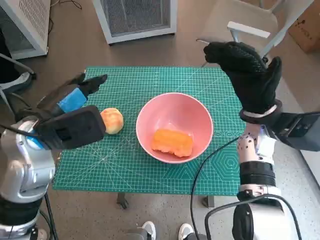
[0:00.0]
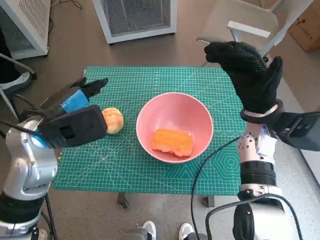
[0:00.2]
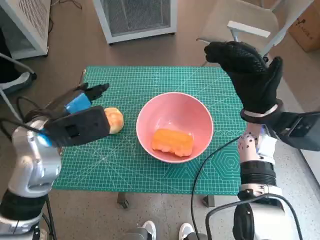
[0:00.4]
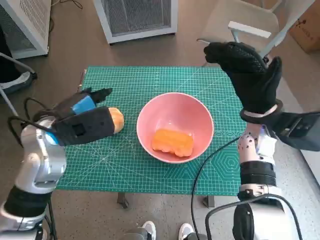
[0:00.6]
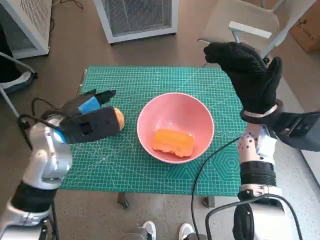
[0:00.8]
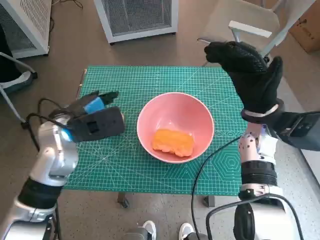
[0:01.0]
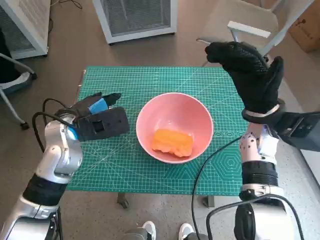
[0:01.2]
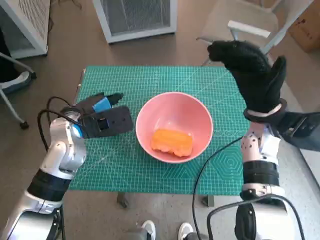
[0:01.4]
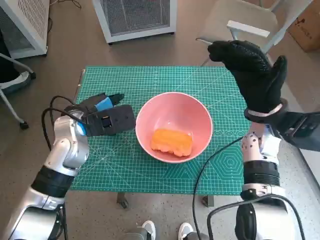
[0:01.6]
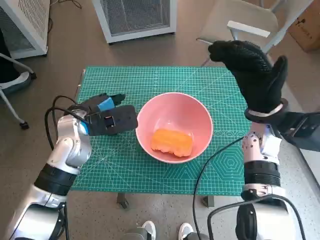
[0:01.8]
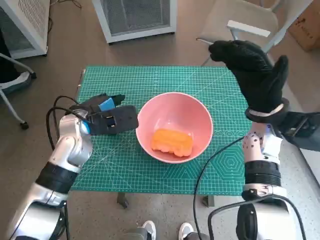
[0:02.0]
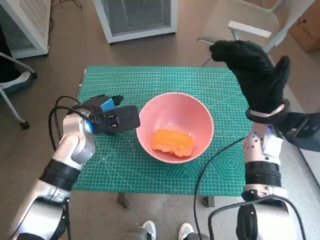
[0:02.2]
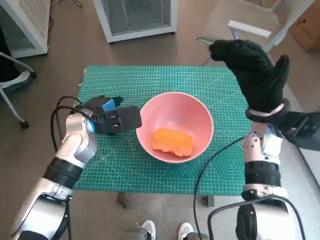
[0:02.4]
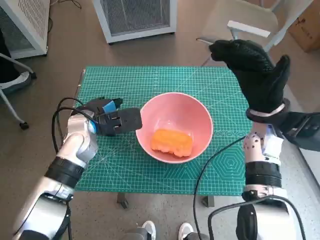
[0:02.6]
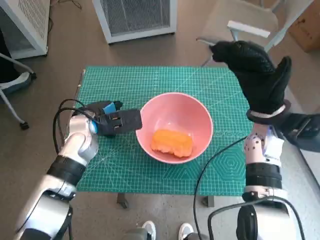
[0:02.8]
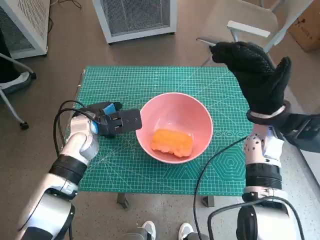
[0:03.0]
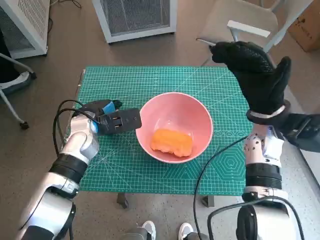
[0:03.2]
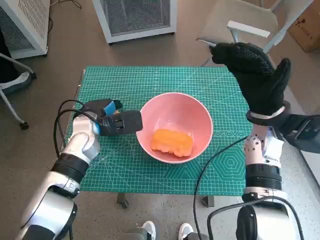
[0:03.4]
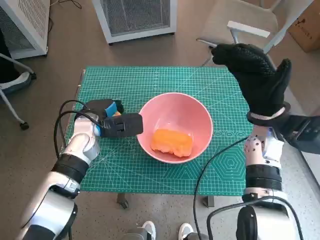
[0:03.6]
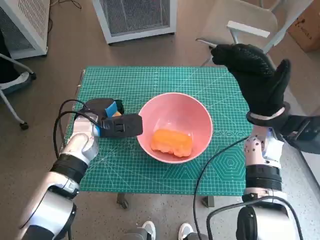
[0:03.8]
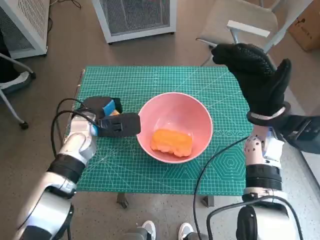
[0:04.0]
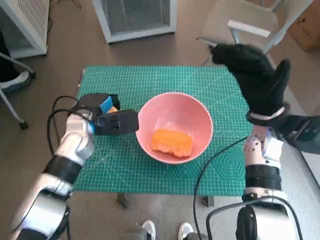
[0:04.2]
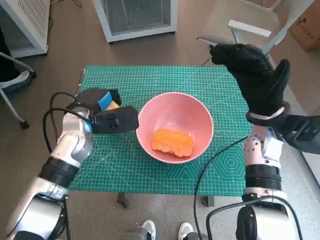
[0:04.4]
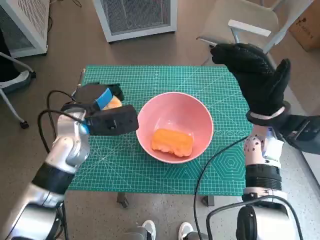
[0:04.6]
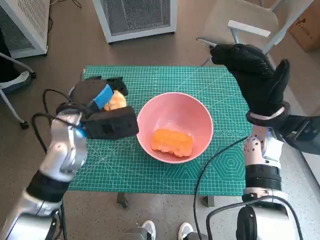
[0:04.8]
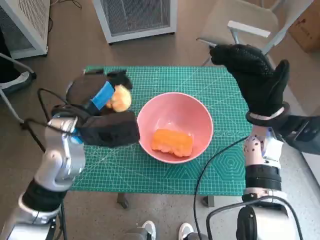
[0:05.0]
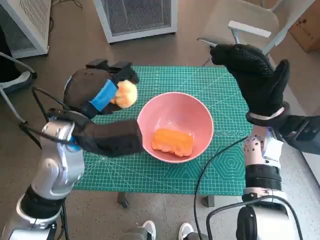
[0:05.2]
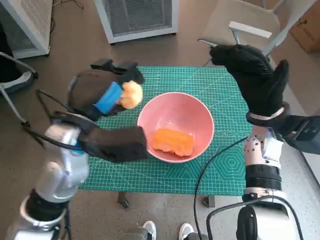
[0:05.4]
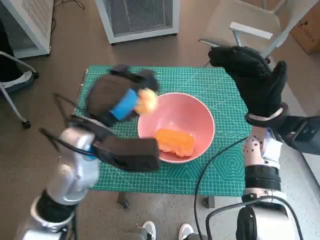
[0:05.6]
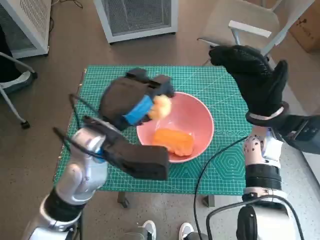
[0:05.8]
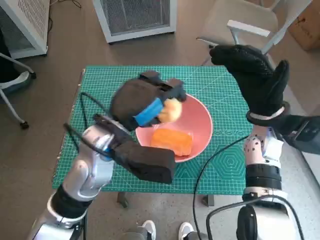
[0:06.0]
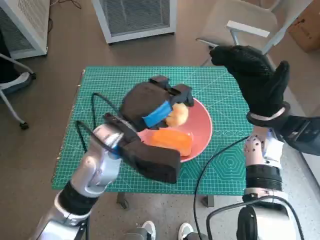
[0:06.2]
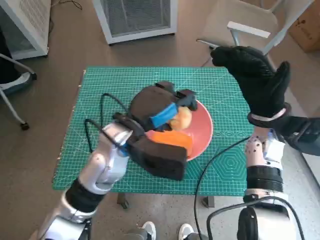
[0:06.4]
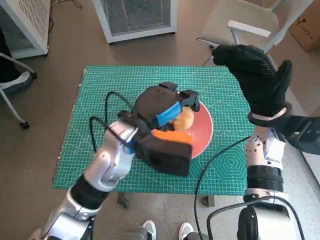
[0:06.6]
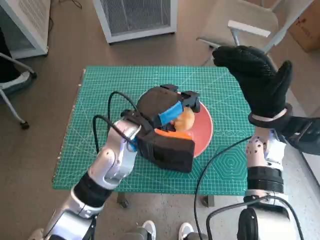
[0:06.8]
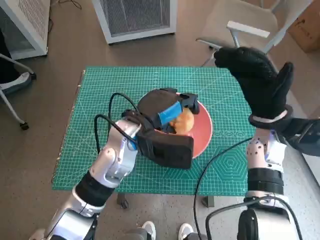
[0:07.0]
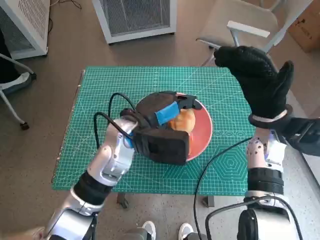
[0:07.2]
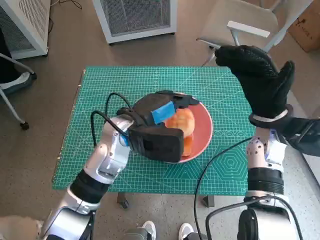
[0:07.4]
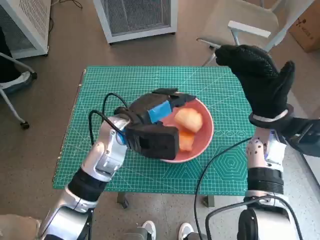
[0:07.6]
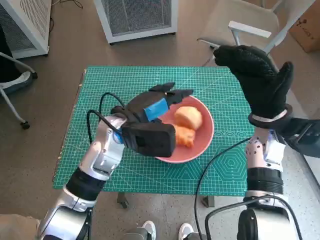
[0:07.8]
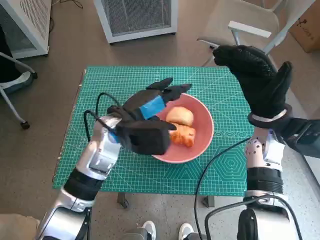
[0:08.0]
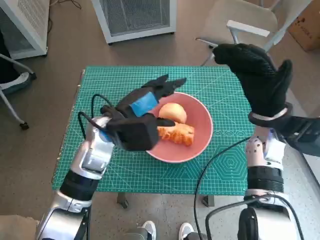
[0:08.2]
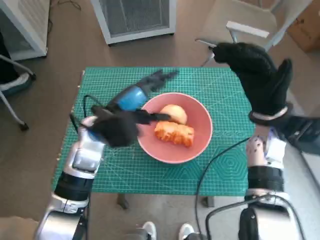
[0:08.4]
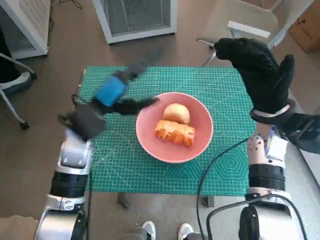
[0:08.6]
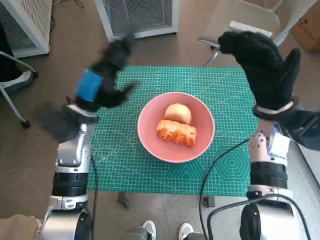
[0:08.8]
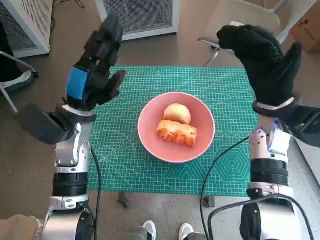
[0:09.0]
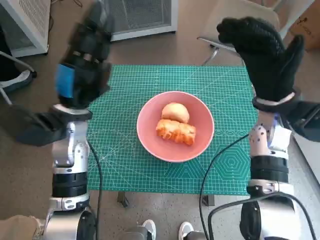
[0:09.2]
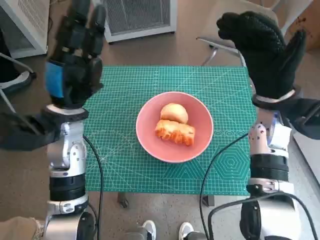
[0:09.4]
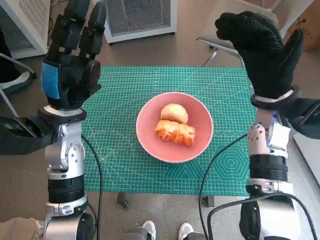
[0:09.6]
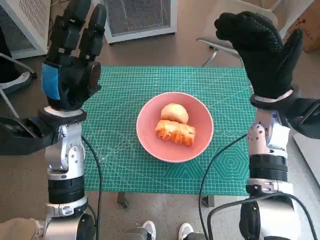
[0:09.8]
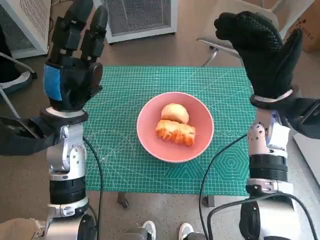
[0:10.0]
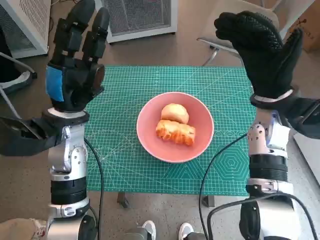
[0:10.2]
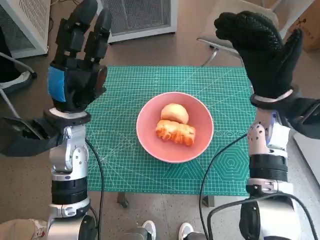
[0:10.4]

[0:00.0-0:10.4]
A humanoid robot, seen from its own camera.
Step, 0:00.0 to 0:03.6: Grasp the round bread with left hand.
Step, 0:03.8 to 0:07.6: Place the round bread in pink bowl with left hand.
0:00.0 to 0:01.4: The left hand travels downward and forward by roughly 10 cm.
0:01.4 to 0:03.0: The left hand moves roughly 5 cm.
0:03.0 to 0:04.4: The hands make only small movements.
0:04.4 to 0:06.0: The left hand shifts some 15 cm to the right, backward and upward.
0:06.0 to 0:07.4: The left hand shifts by some 5 cm.
0:07.4 to 0:09.0: The left hand shifts roughly 10 cm to the left.

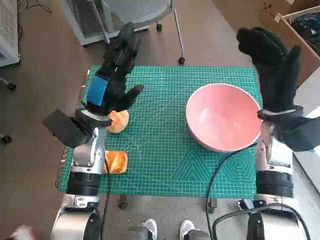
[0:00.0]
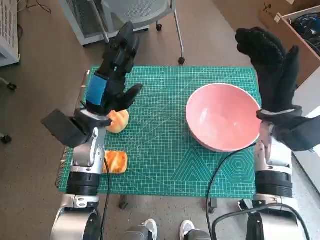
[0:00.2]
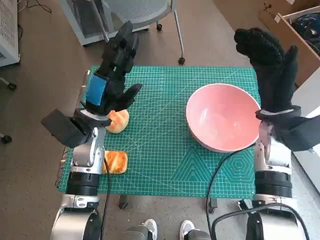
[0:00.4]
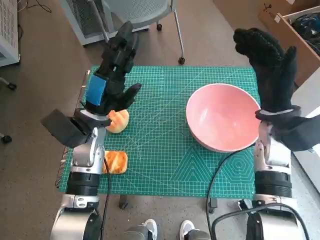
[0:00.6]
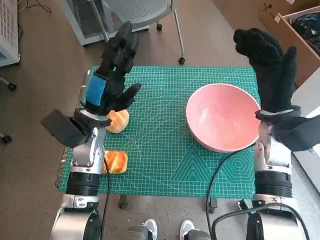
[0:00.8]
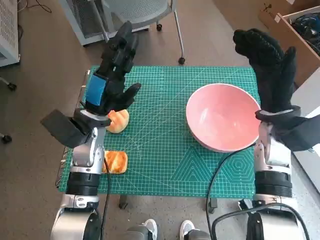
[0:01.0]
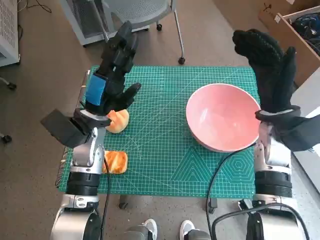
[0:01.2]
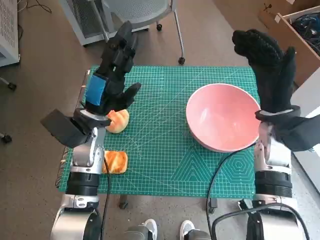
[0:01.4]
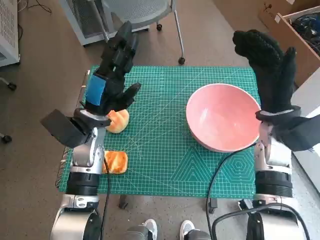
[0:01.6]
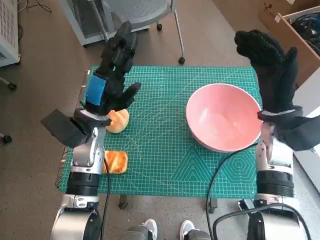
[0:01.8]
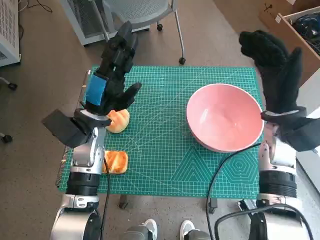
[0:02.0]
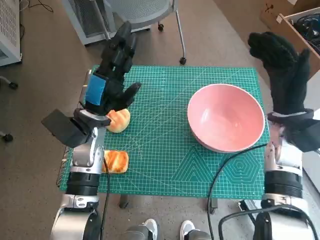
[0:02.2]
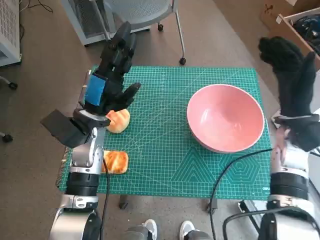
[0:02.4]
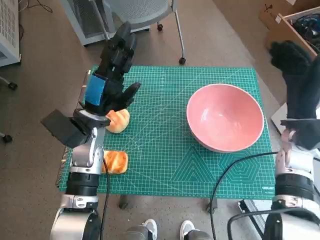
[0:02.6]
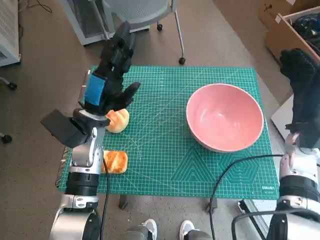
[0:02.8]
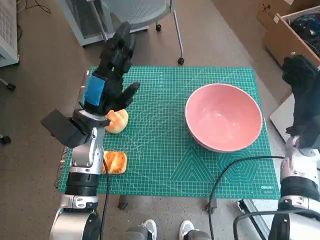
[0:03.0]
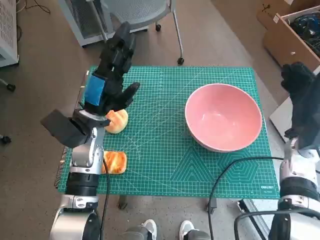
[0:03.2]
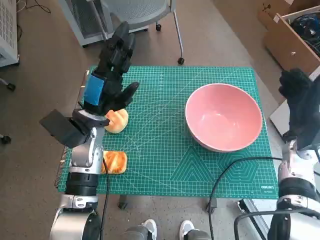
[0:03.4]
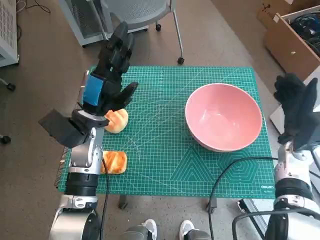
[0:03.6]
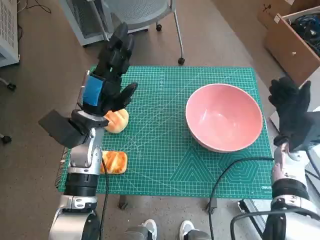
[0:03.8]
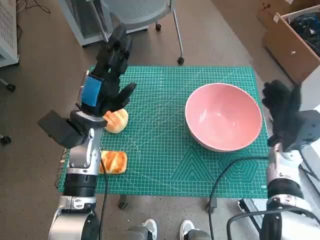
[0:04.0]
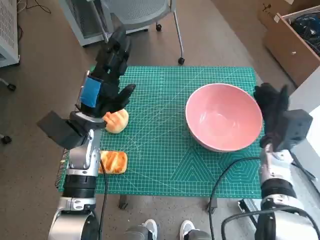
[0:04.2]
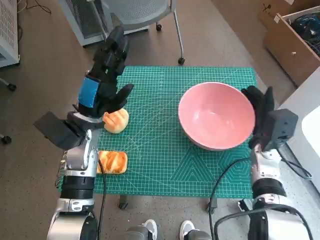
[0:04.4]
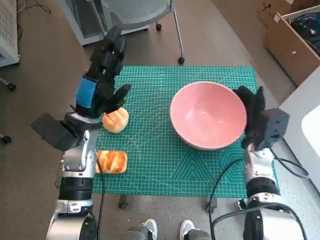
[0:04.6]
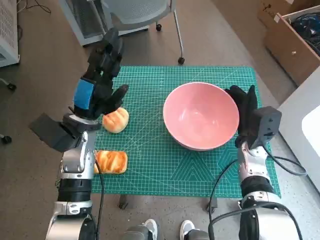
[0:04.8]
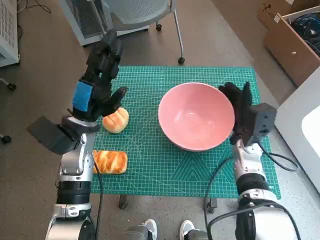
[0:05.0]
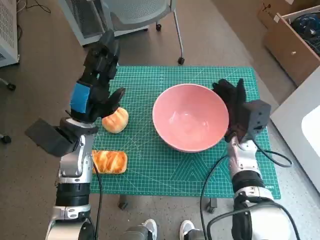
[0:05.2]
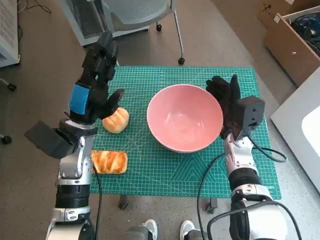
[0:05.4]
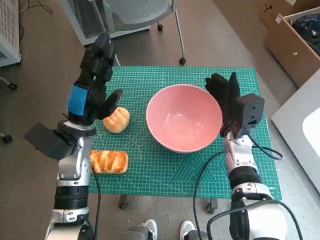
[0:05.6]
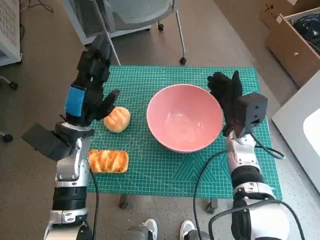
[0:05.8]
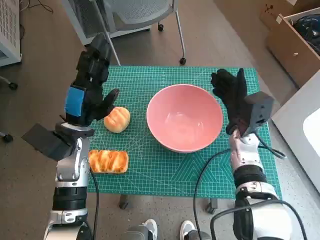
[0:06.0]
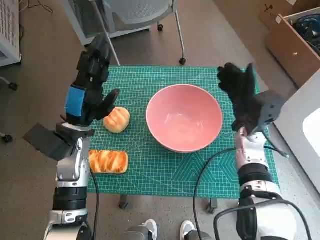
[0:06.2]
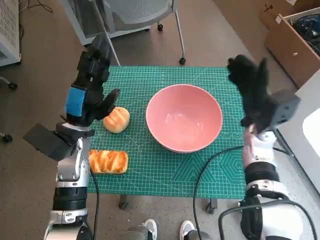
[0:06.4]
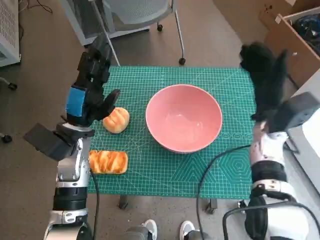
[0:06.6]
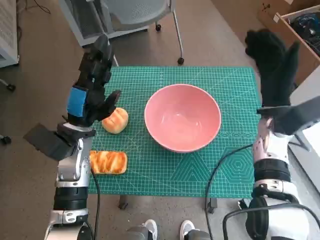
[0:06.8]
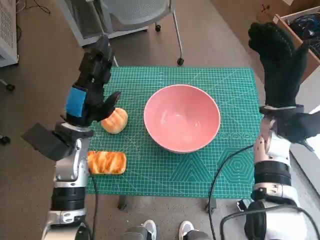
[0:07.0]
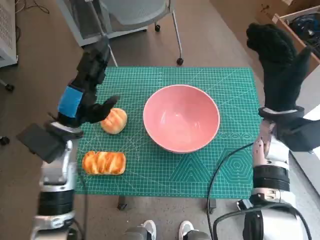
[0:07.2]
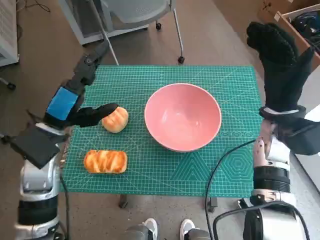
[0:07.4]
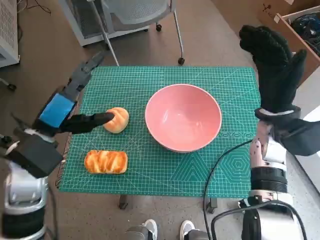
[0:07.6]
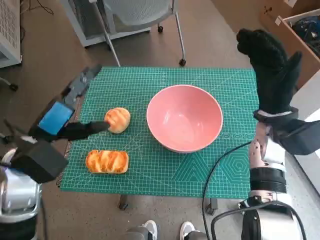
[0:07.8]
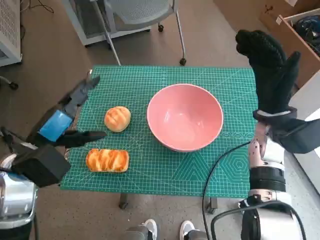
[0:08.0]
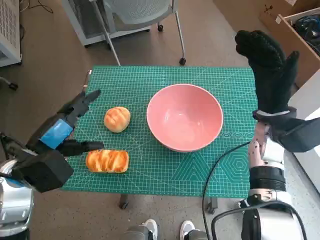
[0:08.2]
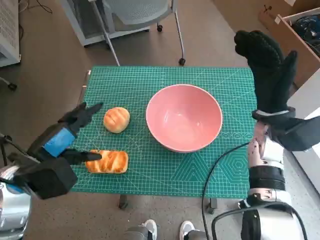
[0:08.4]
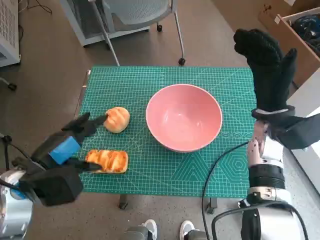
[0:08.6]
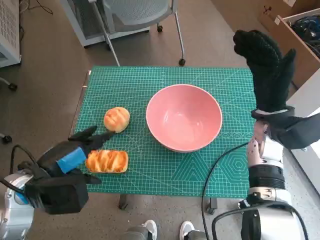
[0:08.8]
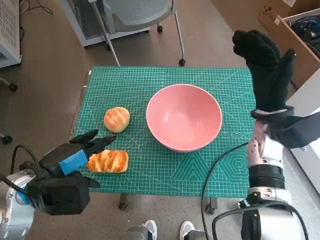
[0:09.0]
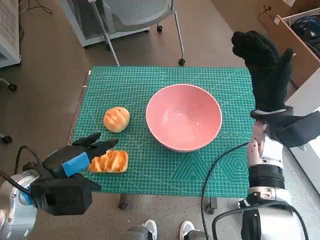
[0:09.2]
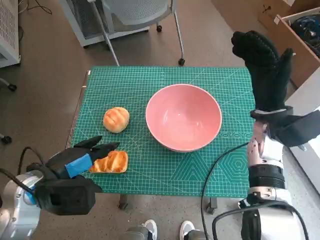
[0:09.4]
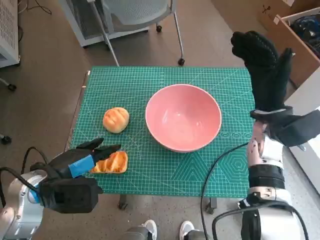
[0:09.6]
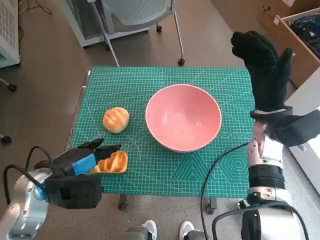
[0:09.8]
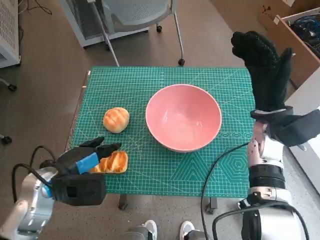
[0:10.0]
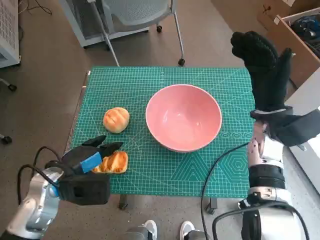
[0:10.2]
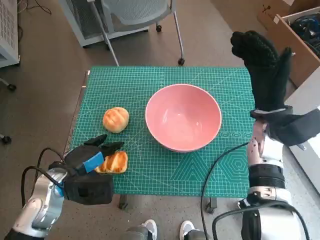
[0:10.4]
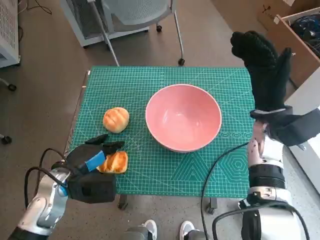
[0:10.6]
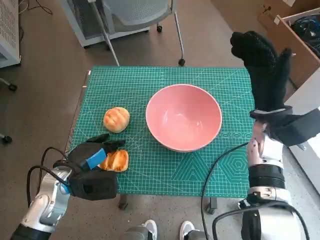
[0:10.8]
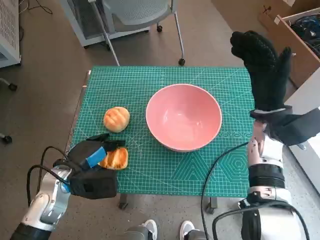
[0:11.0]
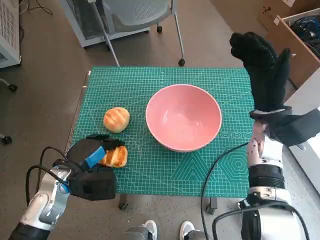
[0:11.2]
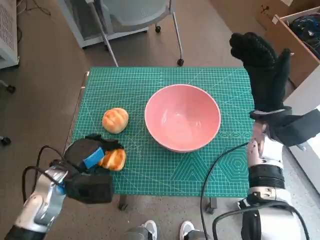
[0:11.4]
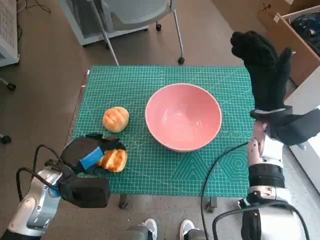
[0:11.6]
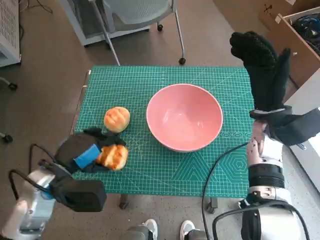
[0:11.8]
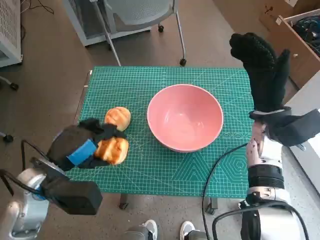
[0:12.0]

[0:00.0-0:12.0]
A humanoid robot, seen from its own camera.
Step, 0:00.0 to 0:05.8: Move the pink bowl to the center of table with right hand.
Step, 0:06.0 to 0:11.2: Grasp the long bread with left hand.
0:01.6 to 0:03.0: The right hand heads to the right, covering roughly 5 cm.
0:03.0 to 0:04.4: The right hand travels downward by some 5 cm.
0:04.4 to 0:06.0: The right hand goes about 5 cm to the left.
0:06.0 to 0:07.6: The left hand travels upward by about 5 cm. Meanwhile the right hand is displaced upward by roughly 10 cm.
0:07.6 to 0:09.0: The left hand travels backward by about 5 cm.
0:09.0 to 0:10.4: The left hand shifts roughly 5 cm downward.
0:10.4 to 0:12.0: The left hand shifts some 5 cm upward.
